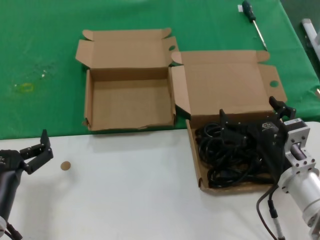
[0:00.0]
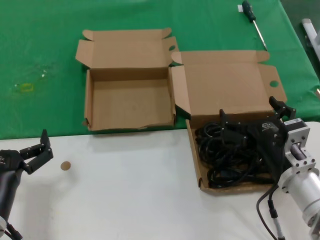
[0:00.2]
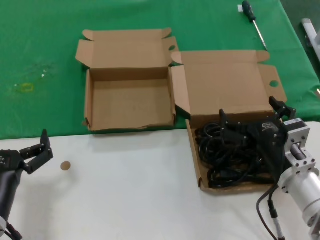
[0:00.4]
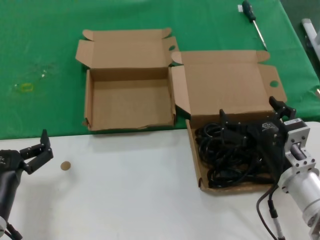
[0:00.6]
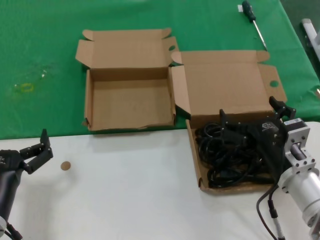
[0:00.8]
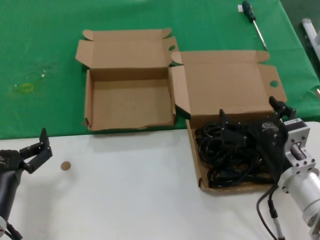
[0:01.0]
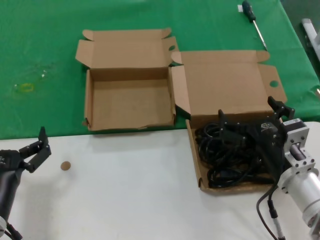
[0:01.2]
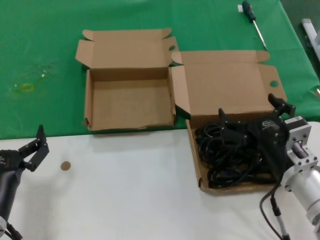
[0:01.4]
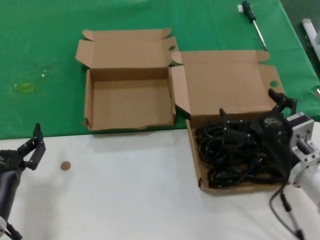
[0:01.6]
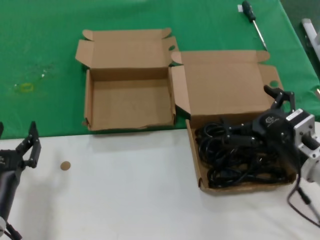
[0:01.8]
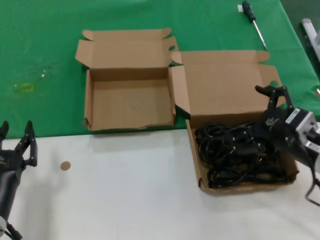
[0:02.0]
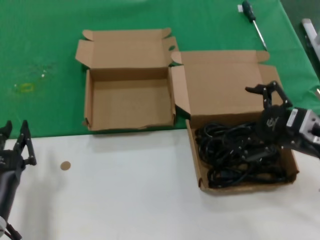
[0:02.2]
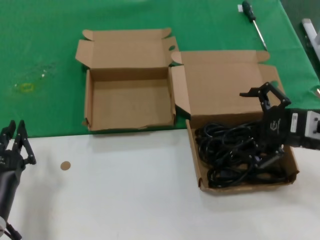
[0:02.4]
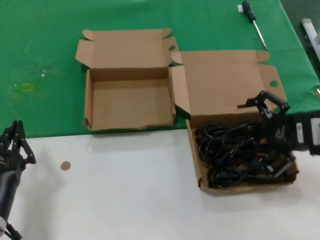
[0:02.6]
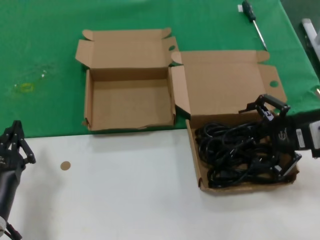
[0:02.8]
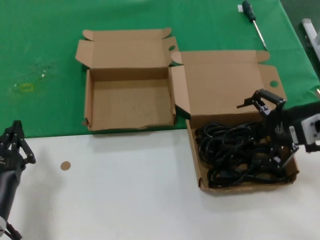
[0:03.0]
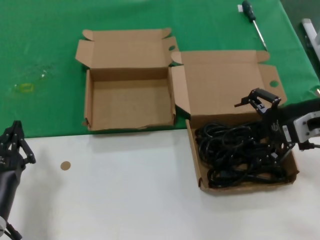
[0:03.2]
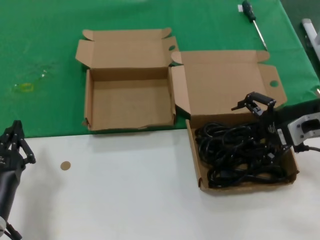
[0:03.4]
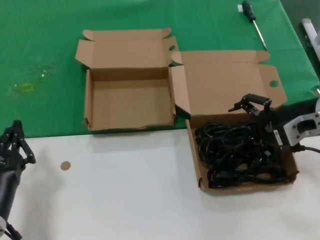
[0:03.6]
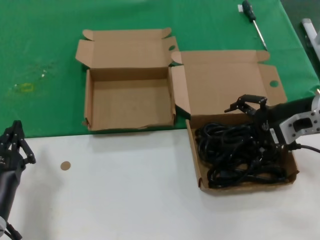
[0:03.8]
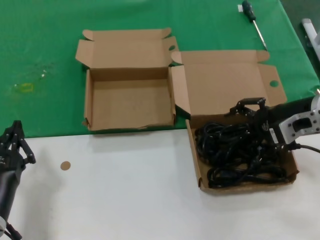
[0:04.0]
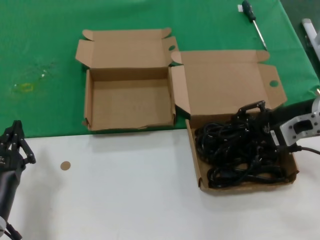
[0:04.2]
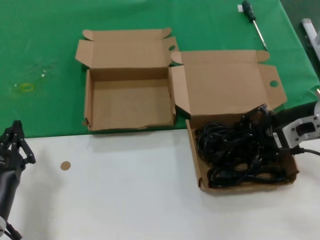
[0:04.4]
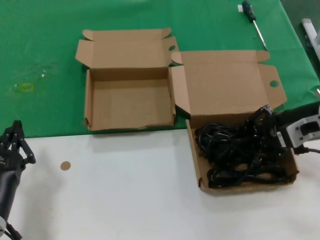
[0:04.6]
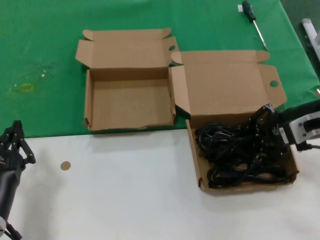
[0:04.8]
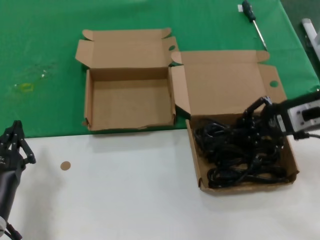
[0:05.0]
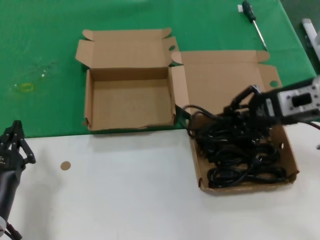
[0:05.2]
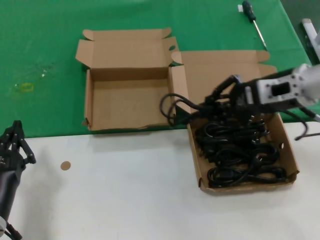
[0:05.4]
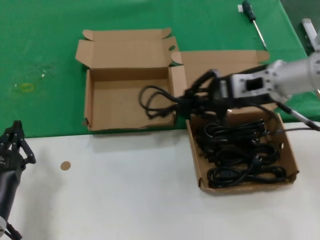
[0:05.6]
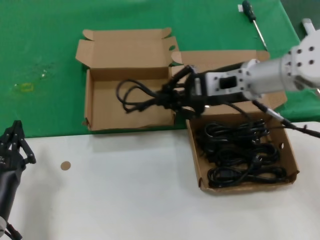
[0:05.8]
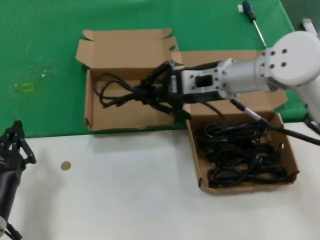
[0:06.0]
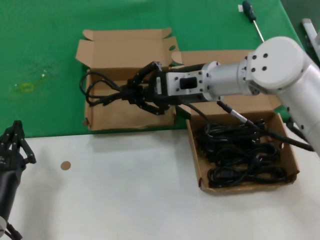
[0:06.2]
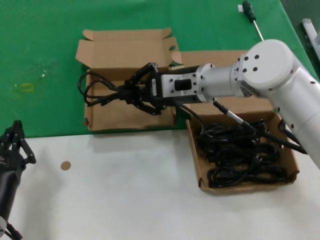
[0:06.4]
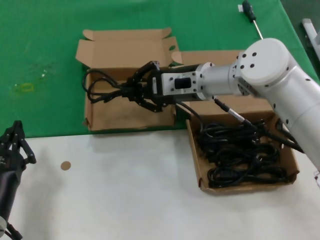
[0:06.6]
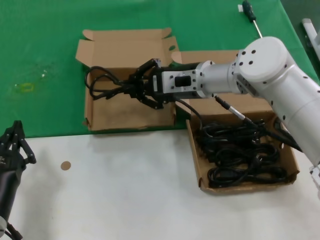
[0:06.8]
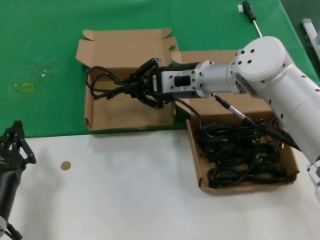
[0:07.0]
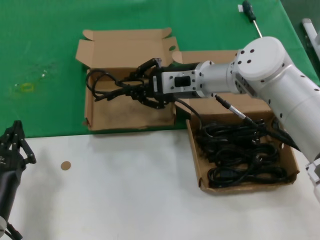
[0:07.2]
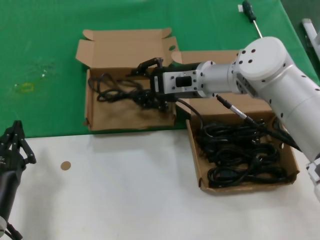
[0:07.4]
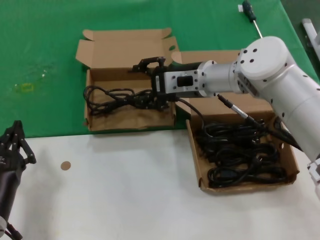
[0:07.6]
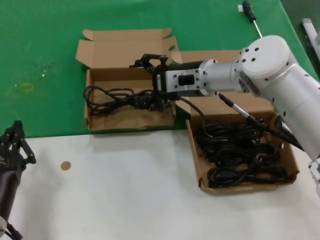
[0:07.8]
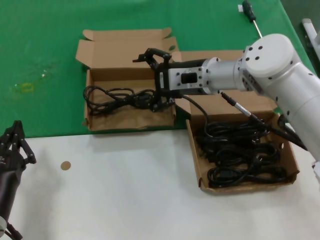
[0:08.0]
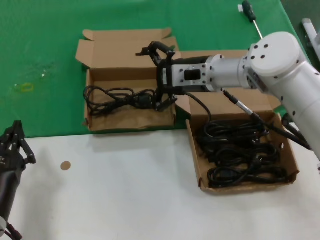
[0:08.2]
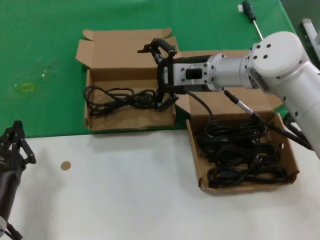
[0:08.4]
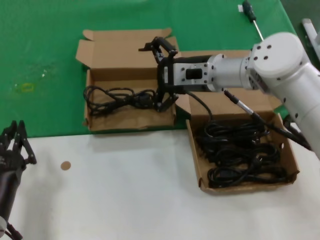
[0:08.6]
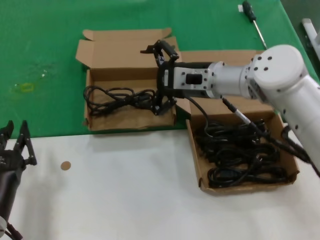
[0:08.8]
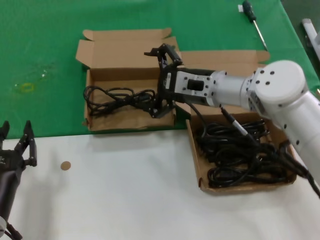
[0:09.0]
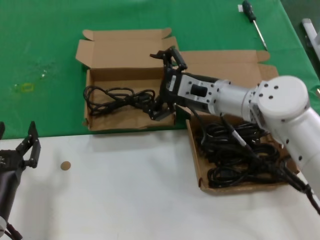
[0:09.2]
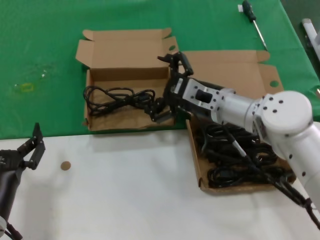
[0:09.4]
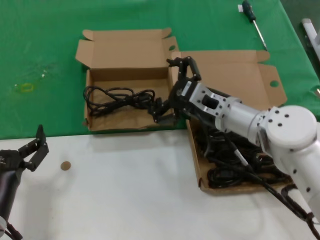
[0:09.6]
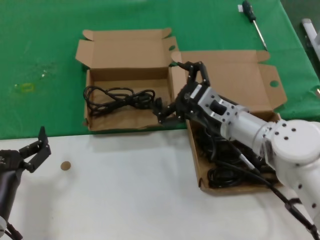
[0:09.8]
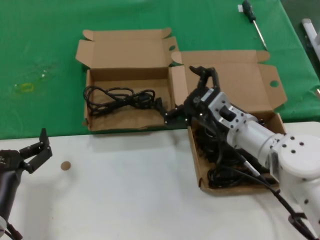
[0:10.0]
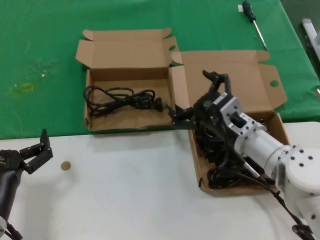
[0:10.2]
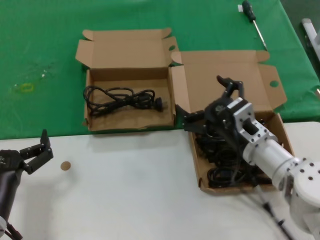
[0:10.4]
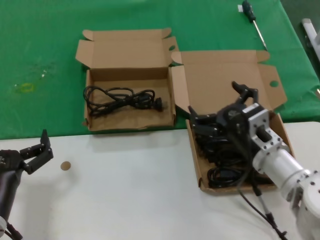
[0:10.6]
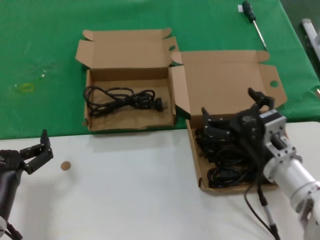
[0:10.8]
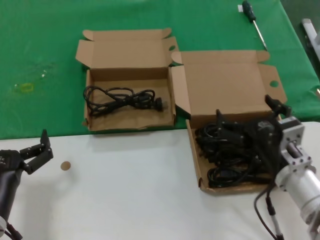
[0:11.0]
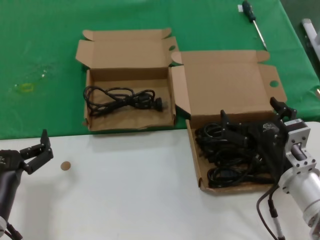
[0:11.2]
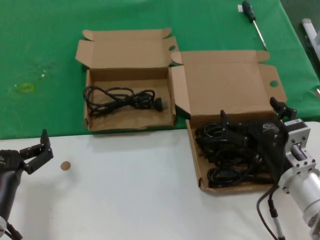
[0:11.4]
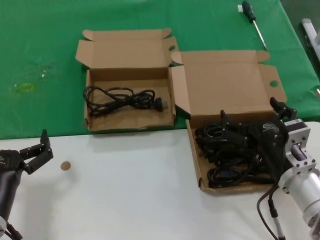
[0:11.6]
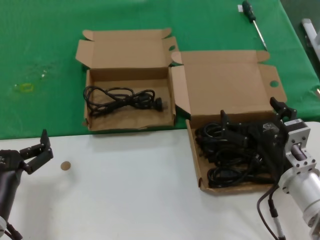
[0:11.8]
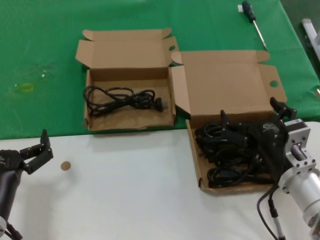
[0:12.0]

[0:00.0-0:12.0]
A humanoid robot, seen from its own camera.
Task of the whole recording: take the parts from the box containing them and put them into an empty box.
Step, 0.0 to 4.4 s: Grasp the data cable.
Step, 4.6 to 7.6 s: Place the data cable in the another box.
0.0 to 1.6 s: The hands move only a little.
1.6 to 3.0 s: The right hand heads upward, to the right and forward, covering roughly 20 cm.
3.0 to 4.4 s: The right hand shifts by approximately 5 cm.
4.4 to 6.0 s: The right hand is displaced to the left by approximately 15 cm.
6.0 to 7.6 s: The right hand shifts by about 5 cm.
7.6 to 9.0 s: The hands move only a little.
9.0 to 10.4 s: The right hand moves backward and downward, approximately 15 cm.
10.4 to 12.0 s: The right hand shifts approximately 10 cm backward.

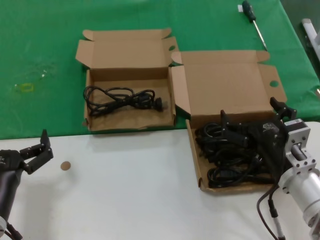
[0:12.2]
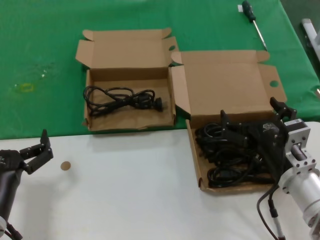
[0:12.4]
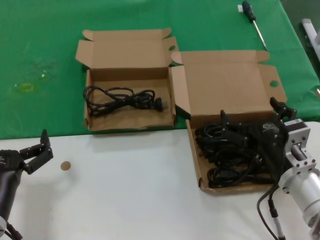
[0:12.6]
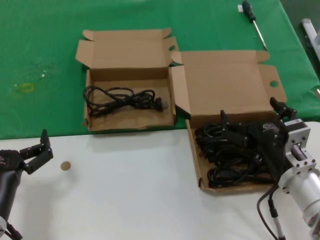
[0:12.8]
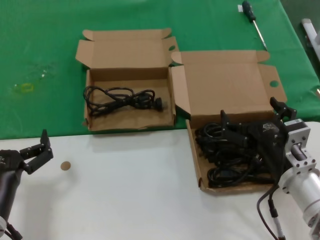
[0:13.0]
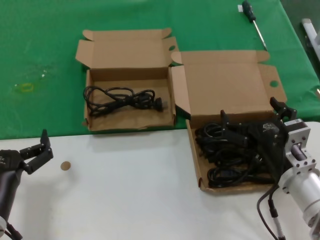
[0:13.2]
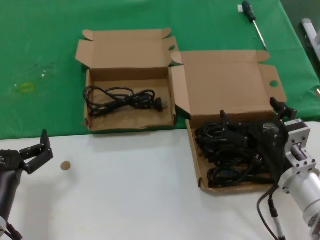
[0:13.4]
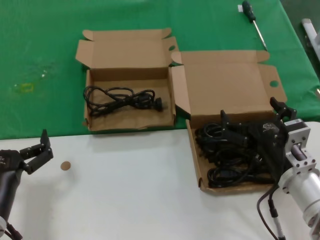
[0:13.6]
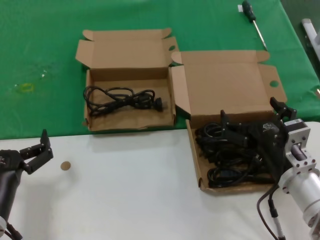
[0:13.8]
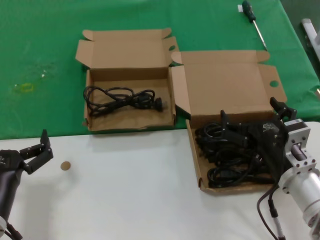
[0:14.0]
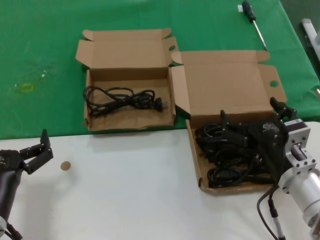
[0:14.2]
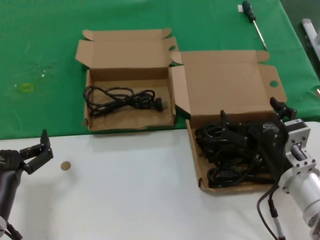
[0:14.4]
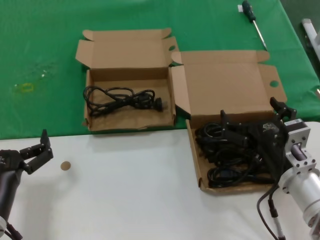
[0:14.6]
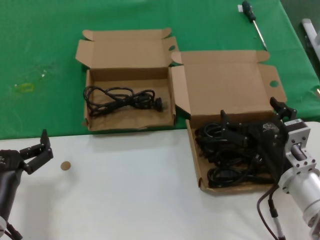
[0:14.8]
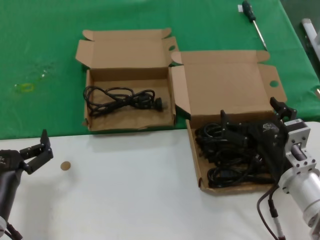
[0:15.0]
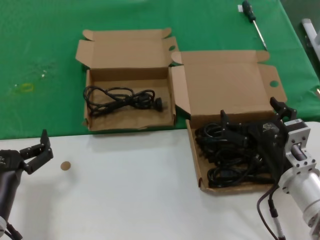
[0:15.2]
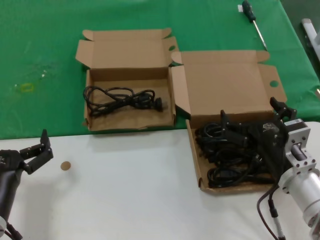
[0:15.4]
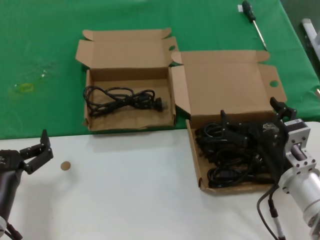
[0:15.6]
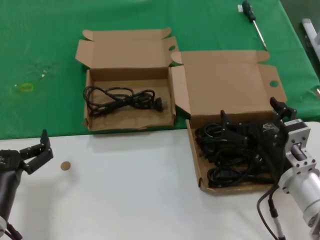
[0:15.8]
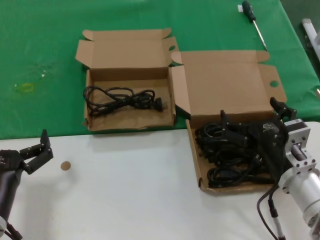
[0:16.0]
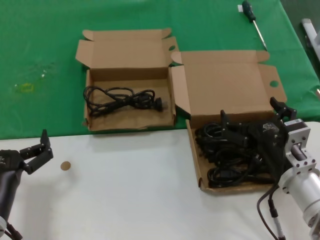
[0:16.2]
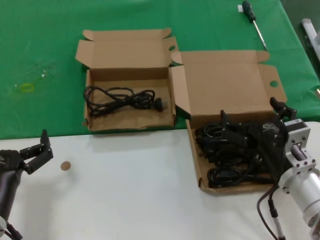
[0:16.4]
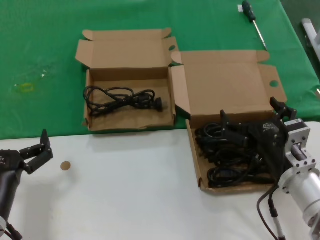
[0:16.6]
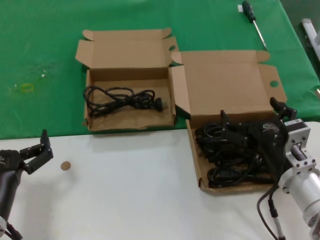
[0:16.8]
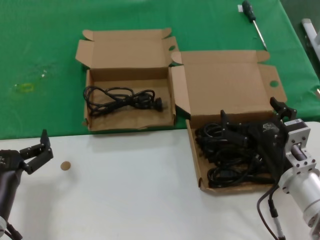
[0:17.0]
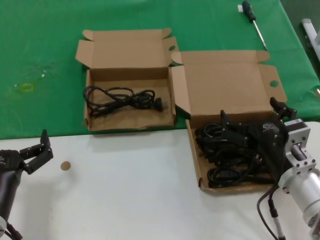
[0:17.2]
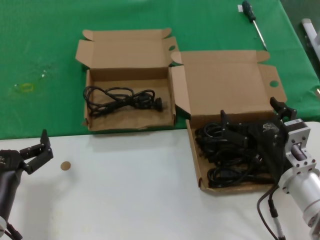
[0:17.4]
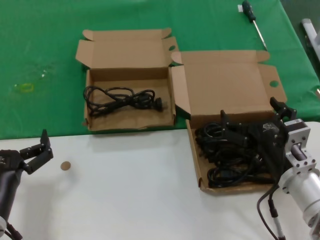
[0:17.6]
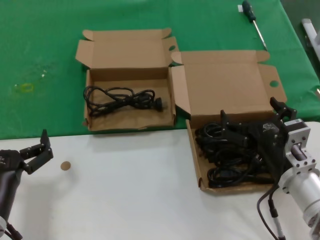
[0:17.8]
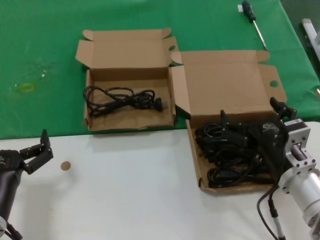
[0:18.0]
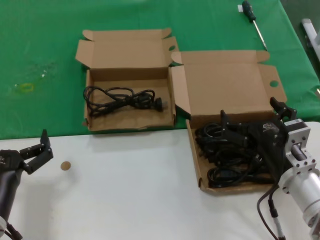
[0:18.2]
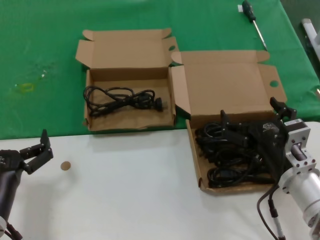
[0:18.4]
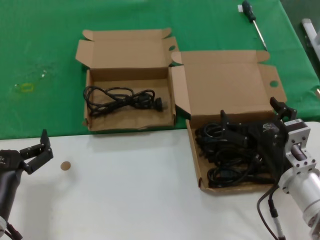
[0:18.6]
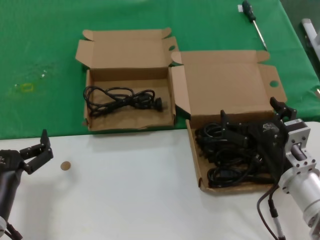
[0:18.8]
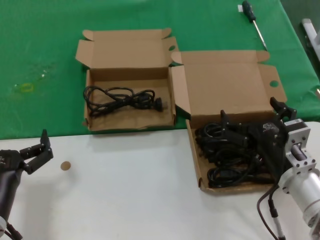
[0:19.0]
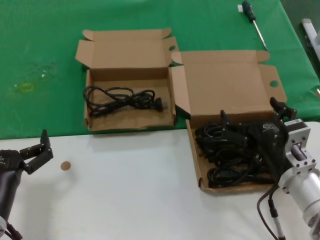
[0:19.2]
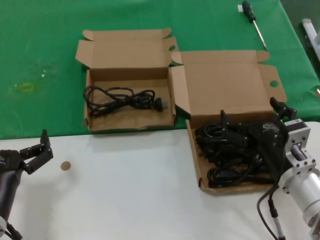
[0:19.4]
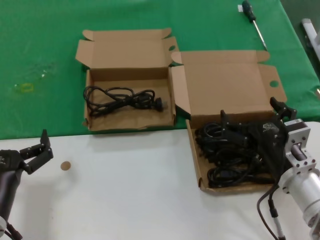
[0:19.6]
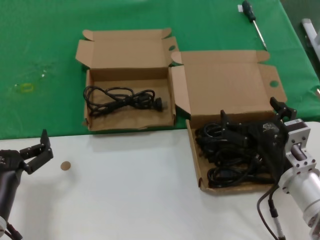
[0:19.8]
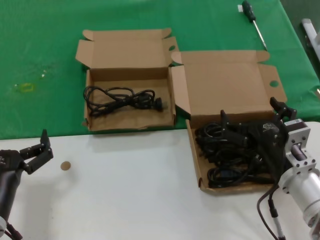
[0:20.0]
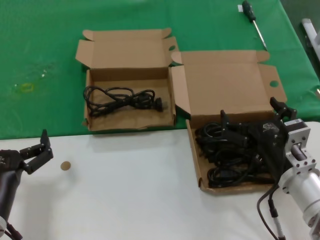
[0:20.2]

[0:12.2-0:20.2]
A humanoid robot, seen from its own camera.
Task of the whole recording: take the parts from the box containing them and put them into an empty box.
12.2 to 20.2 s: Neither hand changes place.

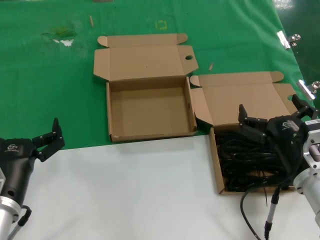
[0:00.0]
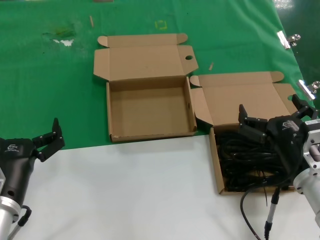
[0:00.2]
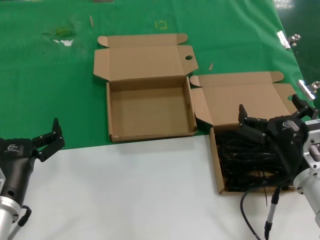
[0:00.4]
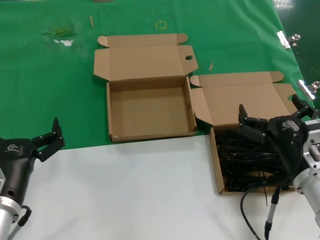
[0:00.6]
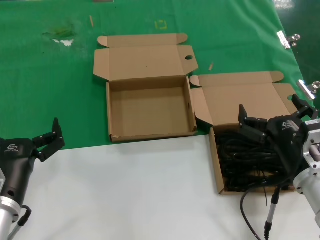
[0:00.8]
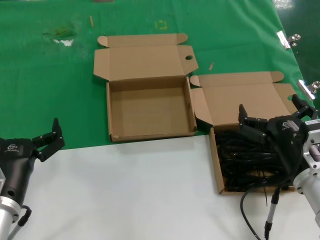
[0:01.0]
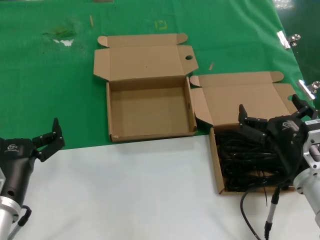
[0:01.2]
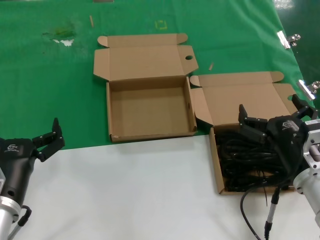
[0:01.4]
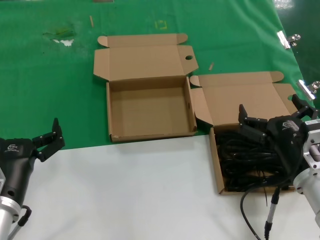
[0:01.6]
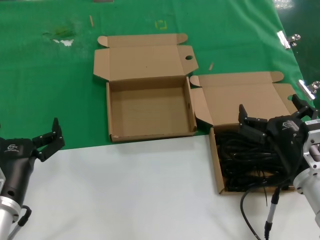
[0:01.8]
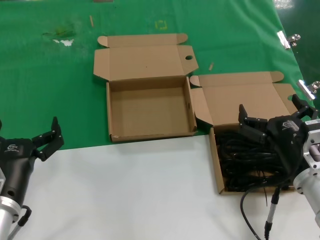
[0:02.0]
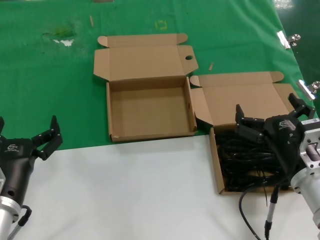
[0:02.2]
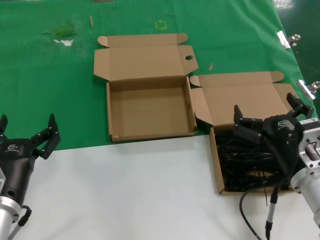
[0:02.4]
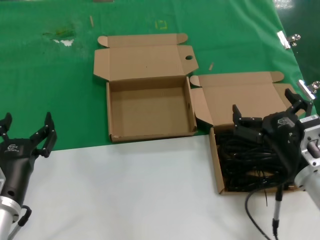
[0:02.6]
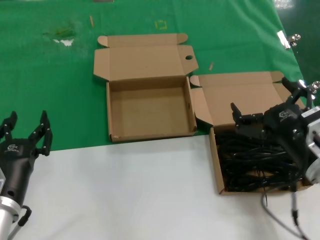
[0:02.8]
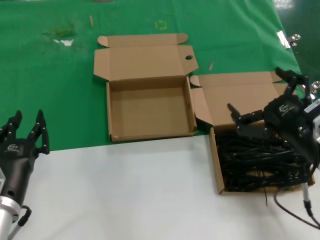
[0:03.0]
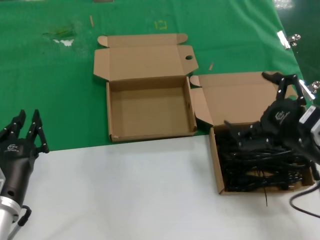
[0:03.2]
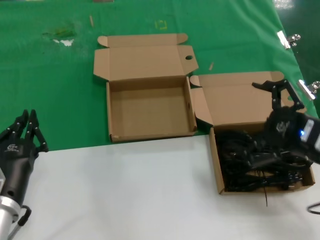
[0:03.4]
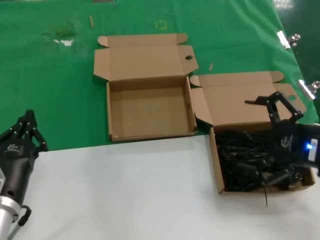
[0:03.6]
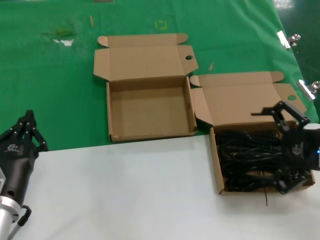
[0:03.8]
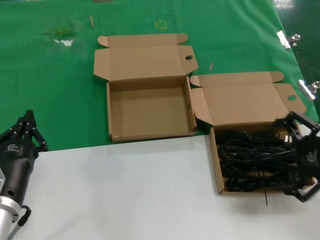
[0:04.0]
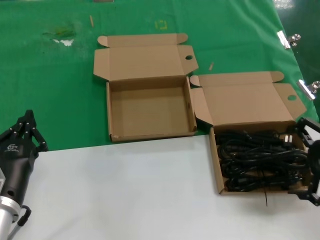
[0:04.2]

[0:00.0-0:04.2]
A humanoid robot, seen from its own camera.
Task of the whole recording: take the parts from the box containing them and put them into an empty box.
0.0 to 1.4 s: Both hands stay about where they are.
1.4 to 2.8 s: There are only small adjustments of the hands.
2.8 to 4.2 s: The right hand is displaced to the right and upward by approximately 15 cm.
